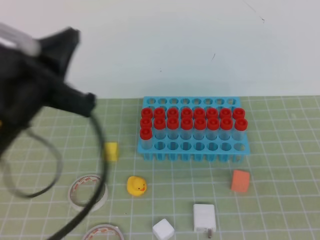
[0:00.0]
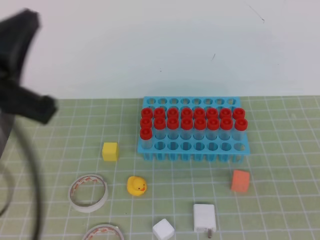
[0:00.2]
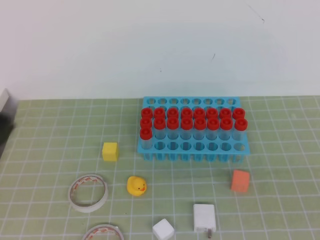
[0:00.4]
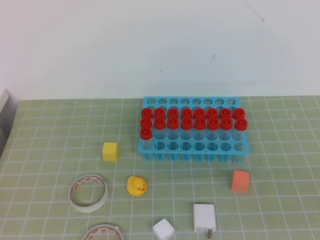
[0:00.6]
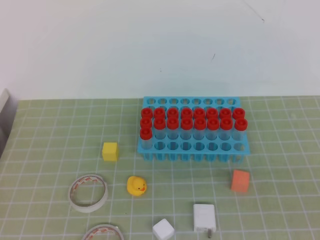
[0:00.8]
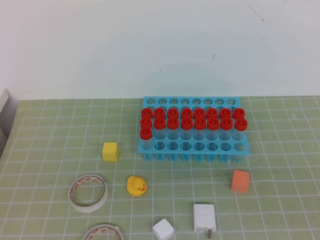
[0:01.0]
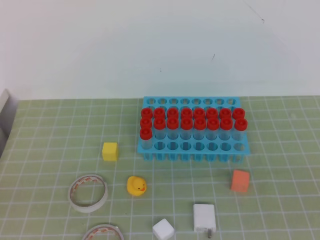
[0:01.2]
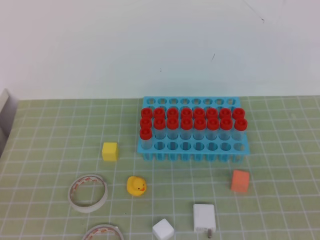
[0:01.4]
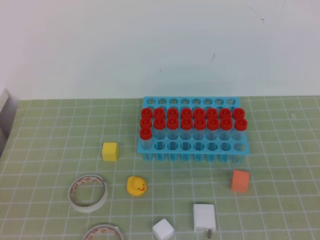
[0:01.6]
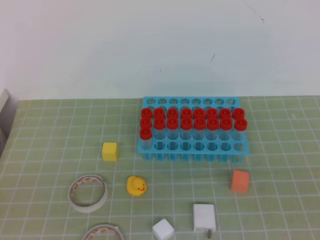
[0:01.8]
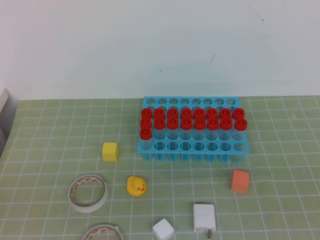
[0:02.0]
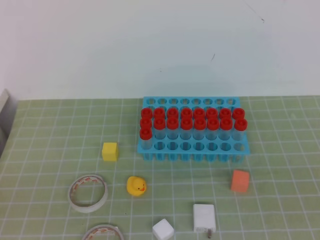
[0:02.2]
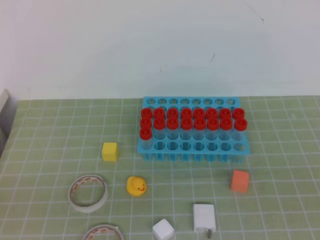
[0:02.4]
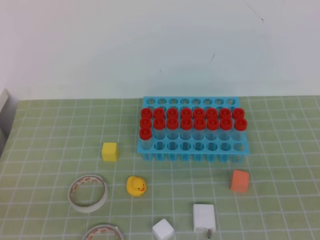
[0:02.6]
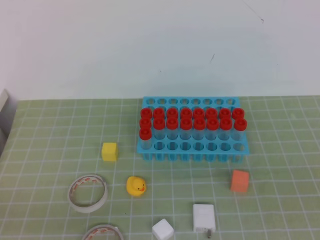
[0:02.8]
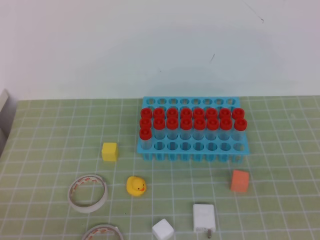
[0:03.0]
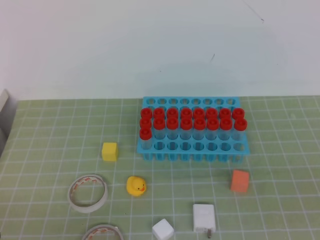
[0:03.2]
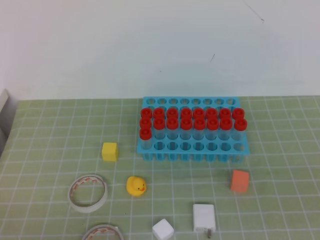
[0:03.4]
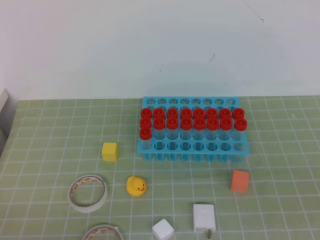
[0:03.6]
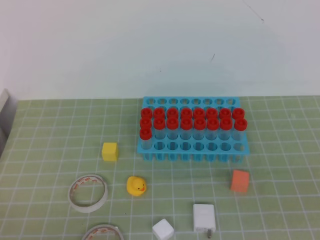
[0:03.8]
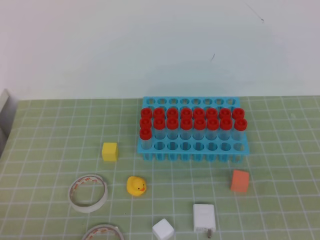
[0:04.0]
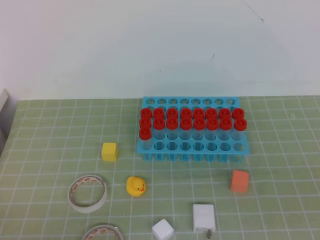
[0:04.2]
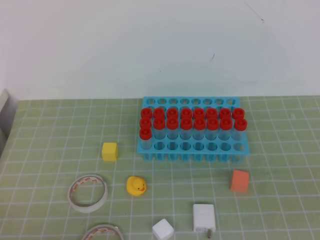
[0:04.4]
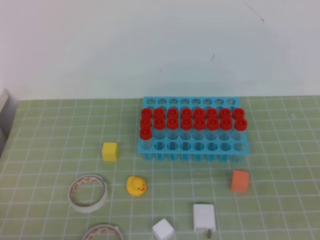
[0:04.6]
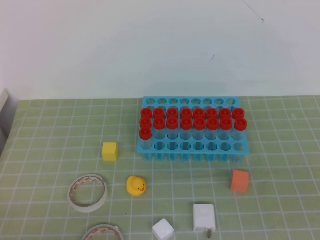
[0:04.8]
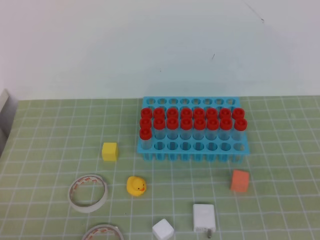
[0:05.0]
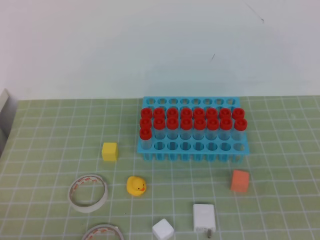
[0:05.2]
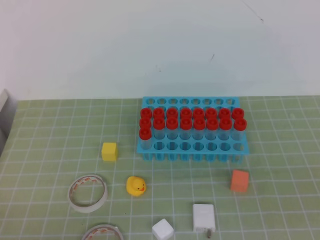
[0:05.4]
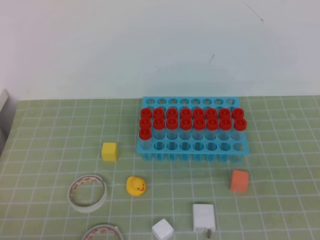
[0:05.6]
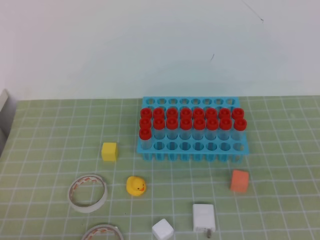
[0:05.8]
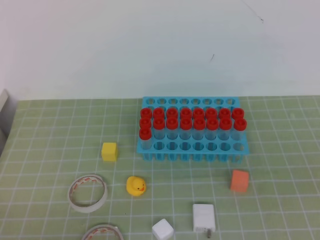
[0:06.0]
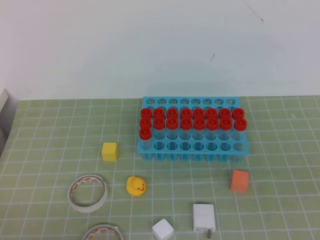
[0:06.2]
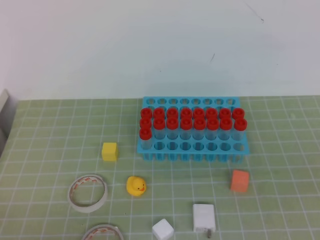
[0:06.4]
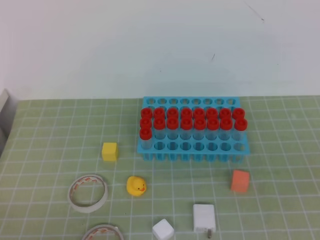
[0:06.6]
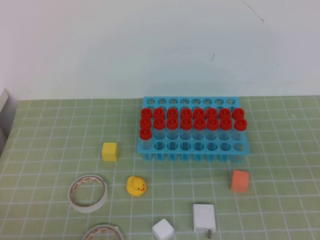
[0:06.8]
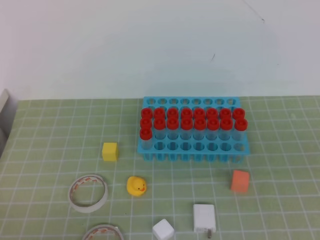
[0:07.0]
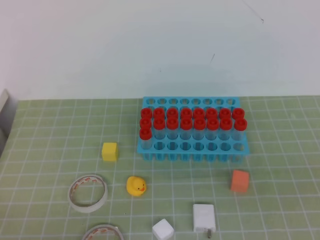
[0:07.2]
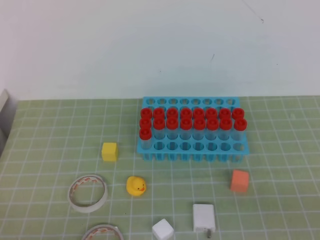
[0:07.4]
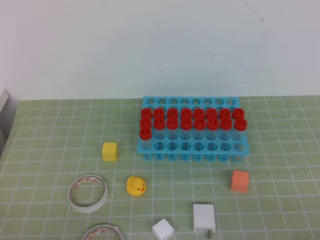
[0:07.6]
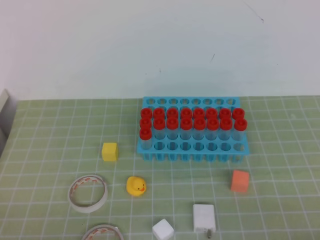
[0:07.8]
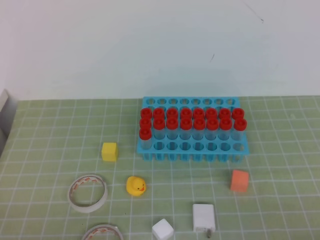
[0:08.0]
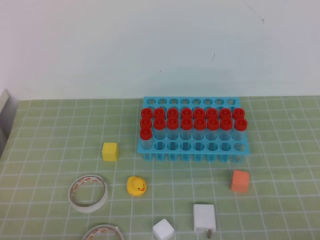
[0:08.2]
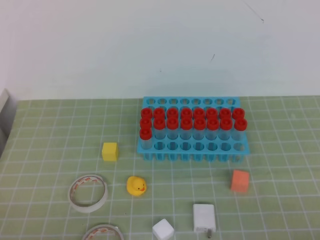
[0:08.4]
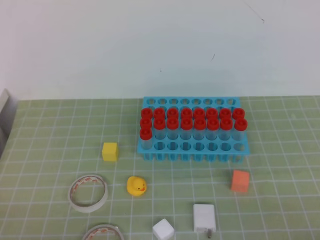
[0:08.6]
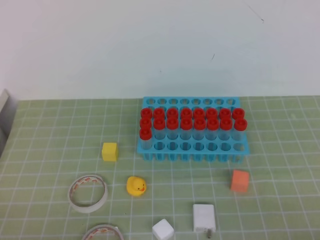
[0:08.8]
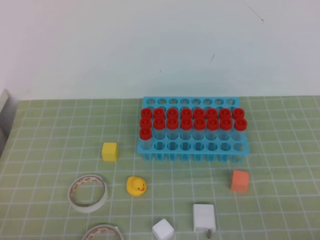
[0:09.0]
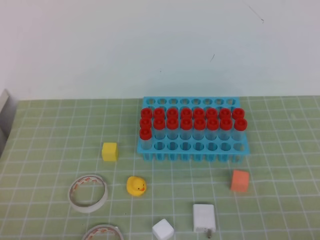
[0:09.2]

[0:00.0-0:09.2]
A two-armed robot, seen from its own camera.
0:00.0 to 0:01.6: The left gripper travels backward, downward and to the left by some 20 cm.
